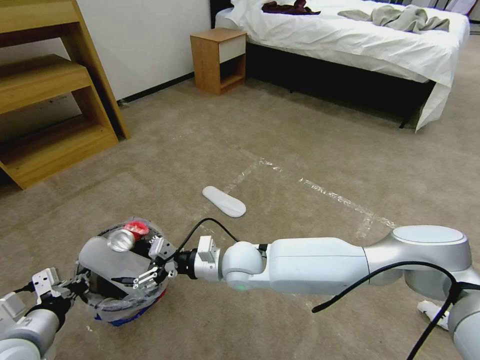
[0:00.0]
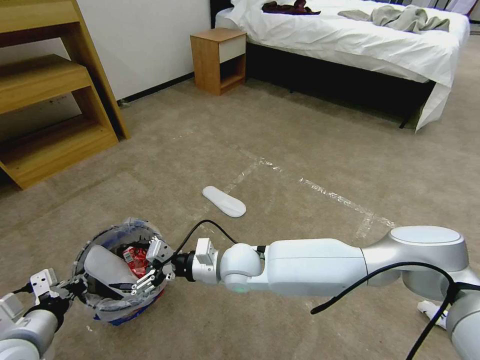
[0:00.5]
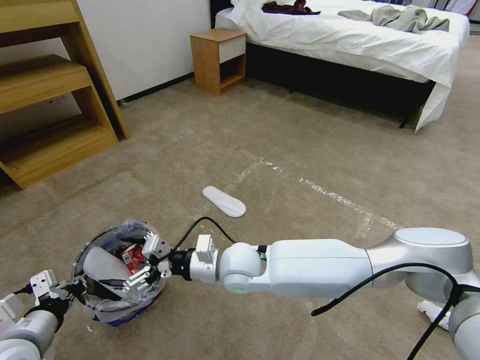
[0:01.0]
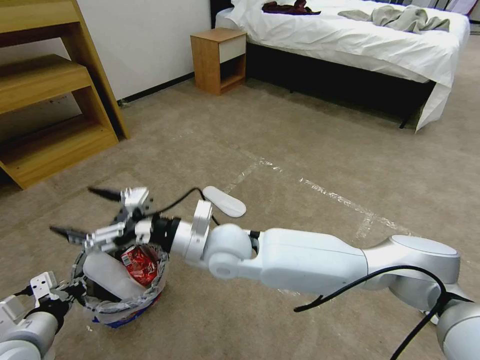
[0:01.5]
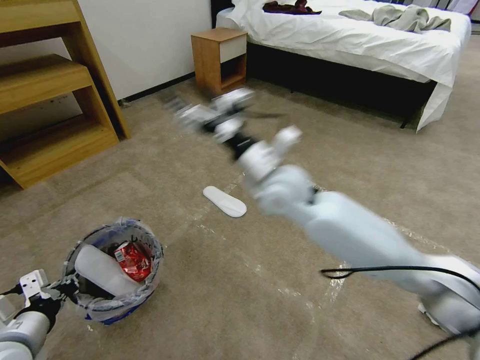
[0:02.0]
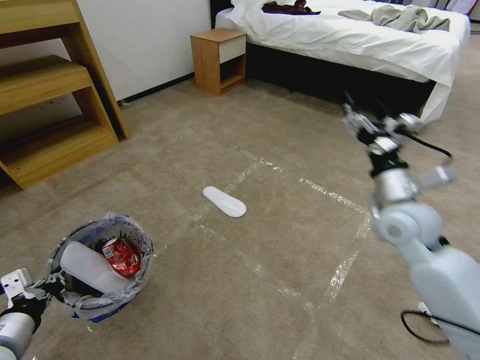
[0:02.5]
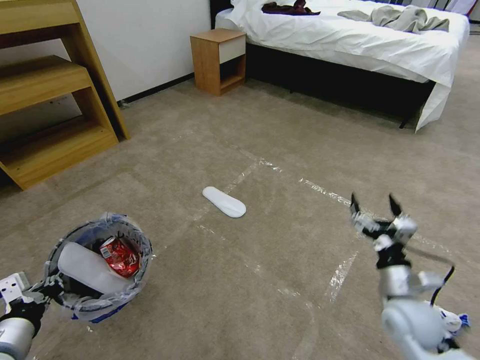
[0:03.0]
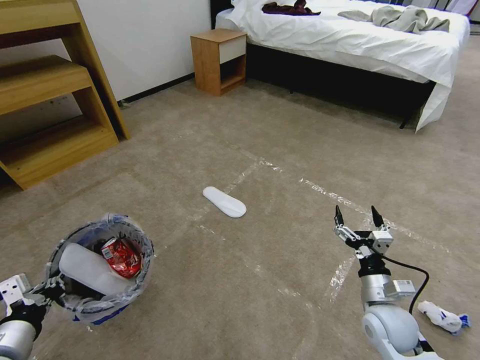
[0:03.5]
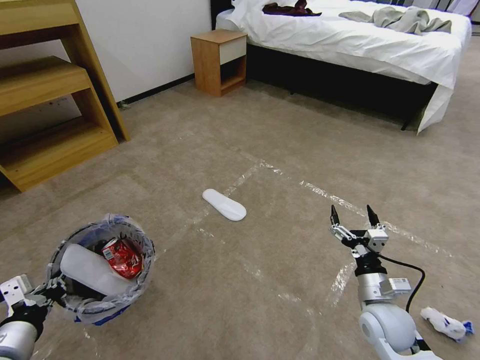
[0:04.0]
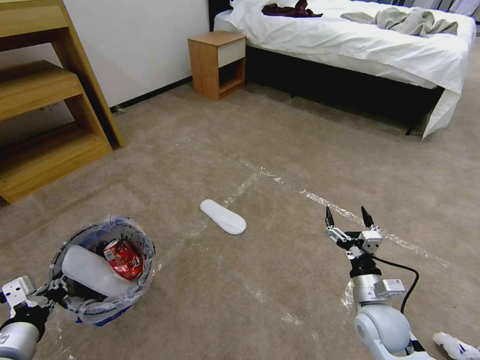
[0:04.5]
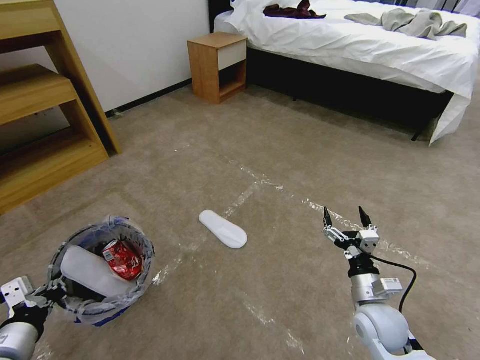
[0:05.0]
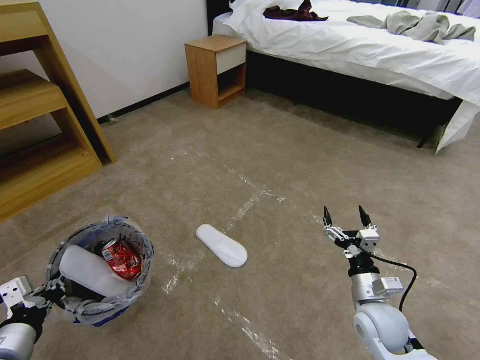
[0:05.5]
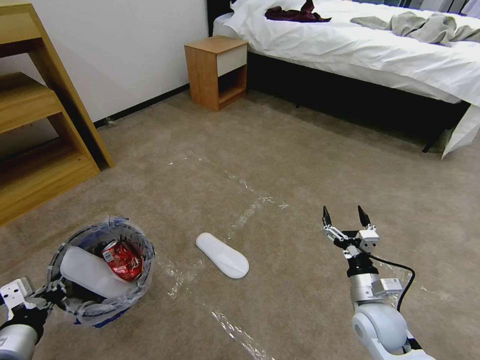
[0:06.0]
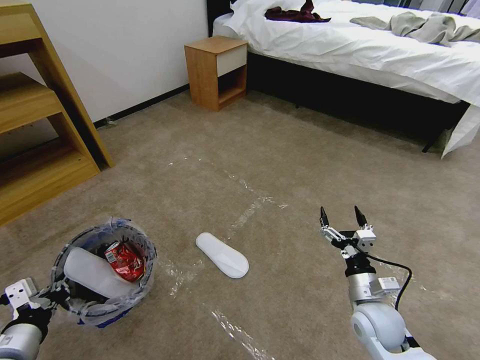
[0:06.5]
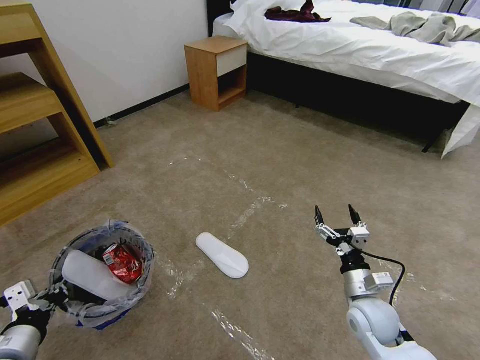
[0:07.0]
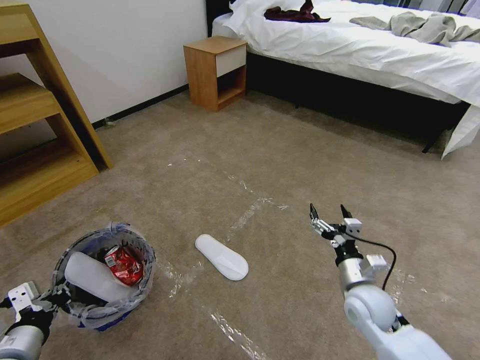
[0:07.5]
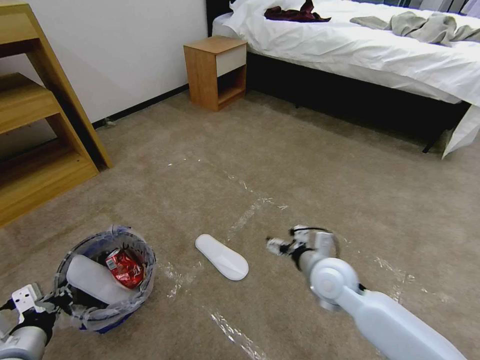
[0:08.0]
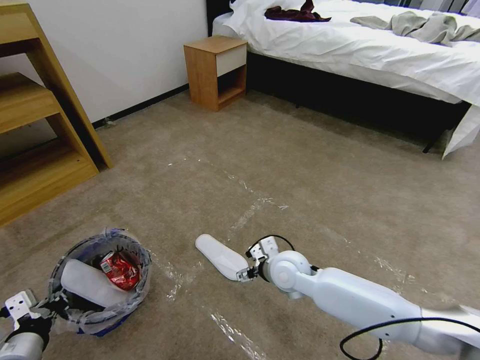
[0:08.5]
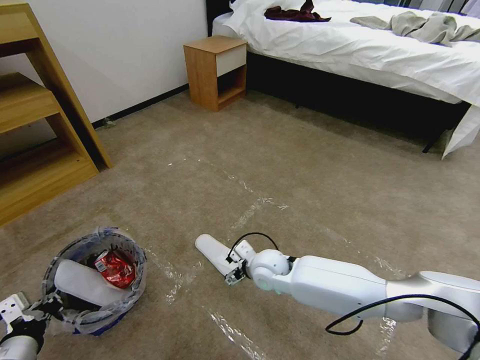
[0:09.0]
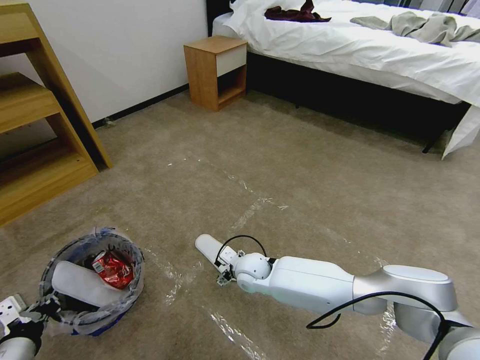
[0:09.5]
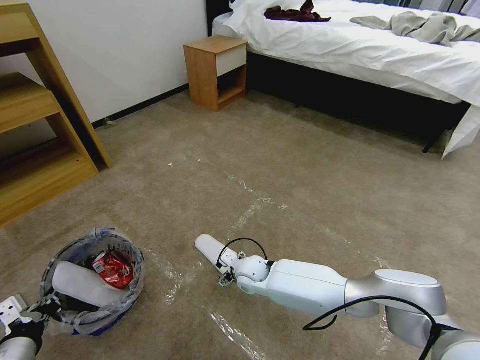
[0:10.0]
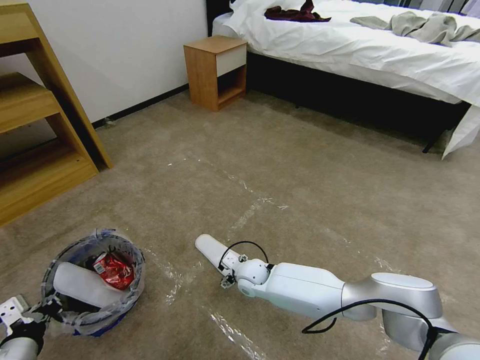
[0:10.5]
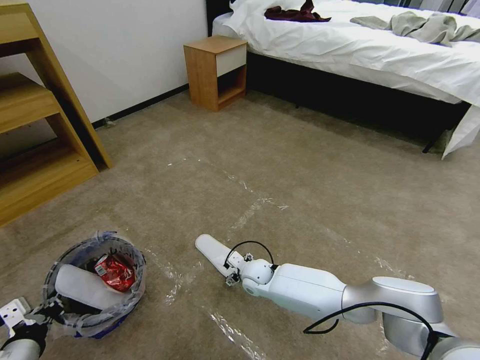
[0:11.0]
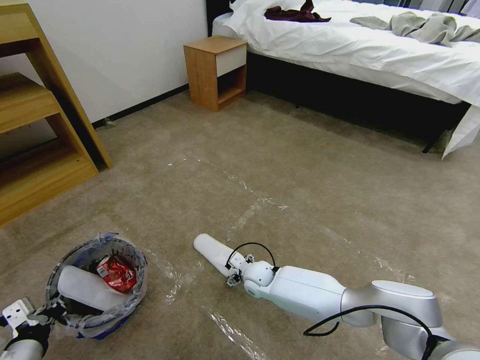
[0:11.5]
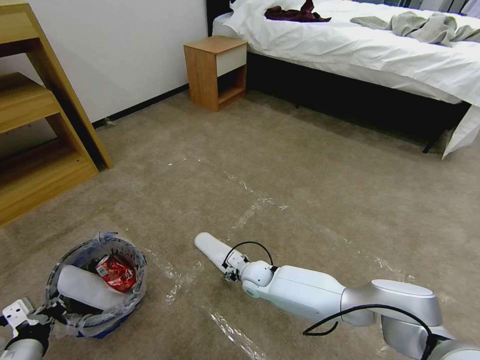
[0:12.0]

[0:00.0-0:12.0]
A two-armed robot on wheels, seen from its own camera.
Task of the whole recording: Pick up the trash bin and place the garbage on the floor into it.
0.0 to 2.0 s: The right gripper travels upward, to the right and forward by some 20 cm.
2.0 to 4.0 s: The right gripper is displaced downward, to the right and backward by about 40 cm.
6.0 to 8.0 s: The right gripper heads to the left, forward and upward, covering approximately 15 cm.
8.0 to 10.0 s: The right gripper is displaced to the left, downward and forward by roughly 20 cm.
10.0 to 12.0 s: The grippers stay close to where they were, moving slightly.

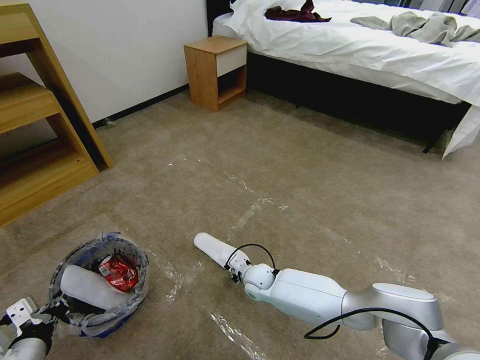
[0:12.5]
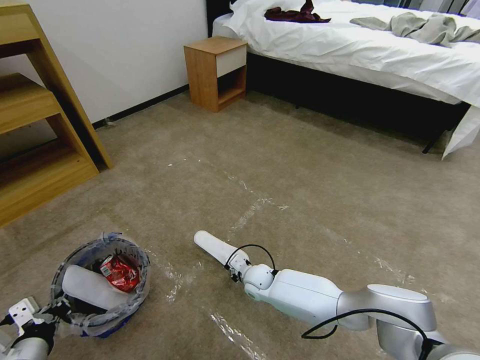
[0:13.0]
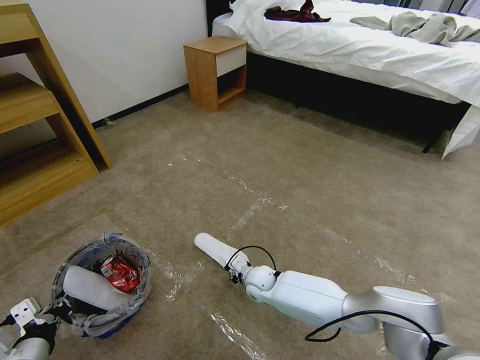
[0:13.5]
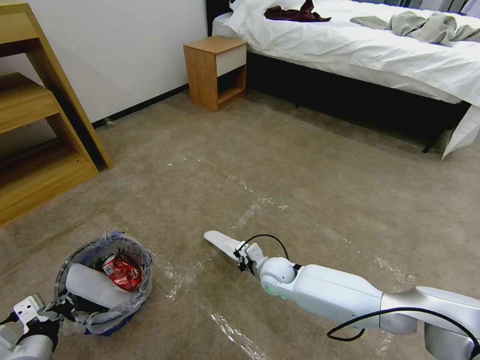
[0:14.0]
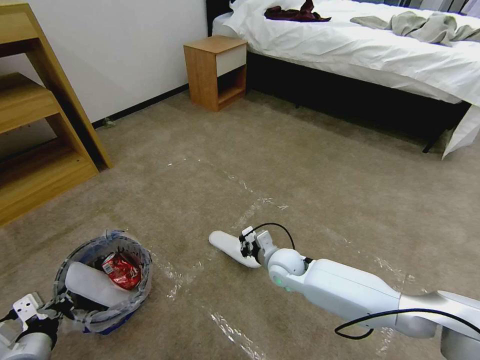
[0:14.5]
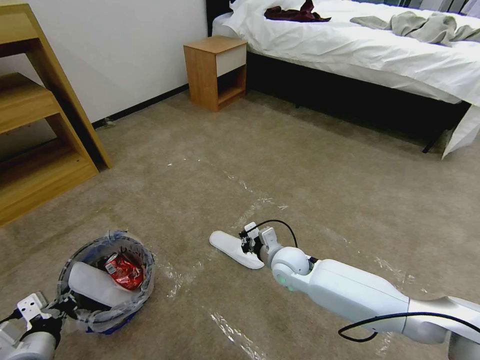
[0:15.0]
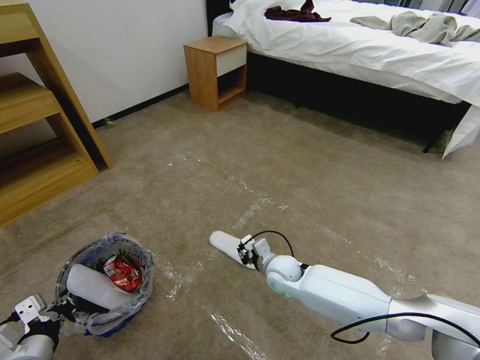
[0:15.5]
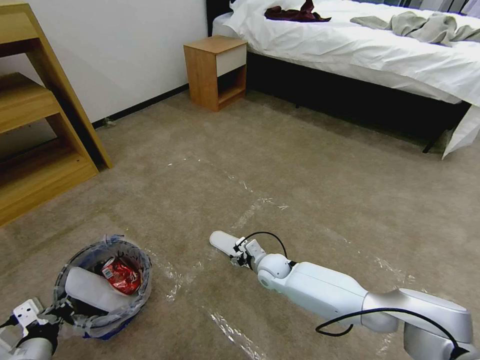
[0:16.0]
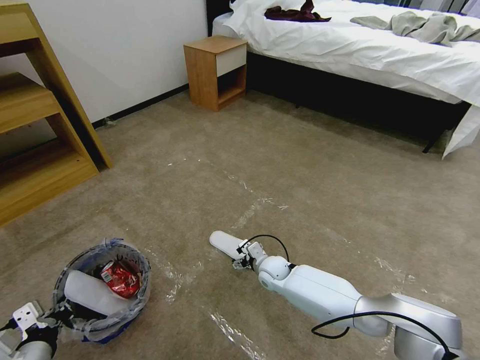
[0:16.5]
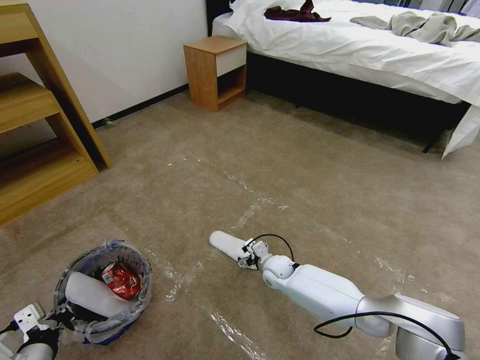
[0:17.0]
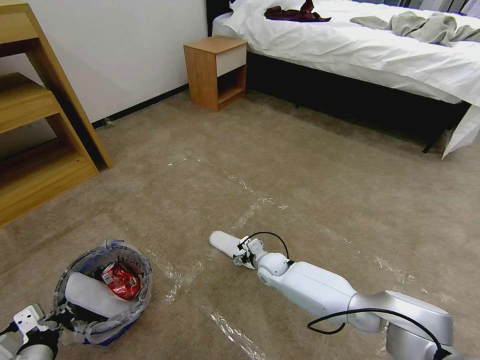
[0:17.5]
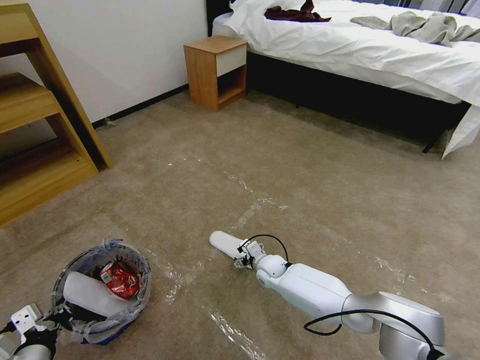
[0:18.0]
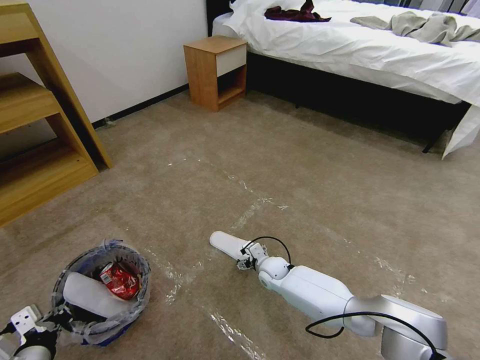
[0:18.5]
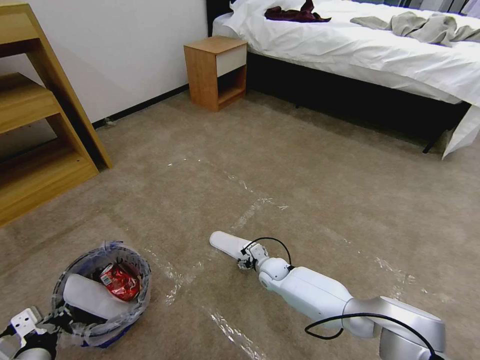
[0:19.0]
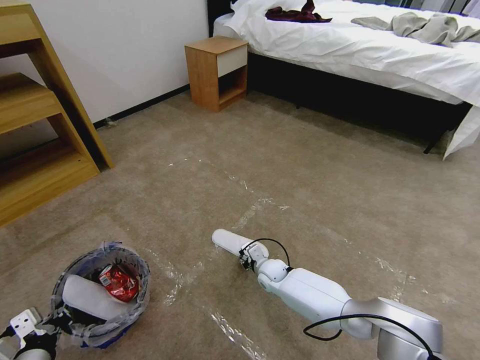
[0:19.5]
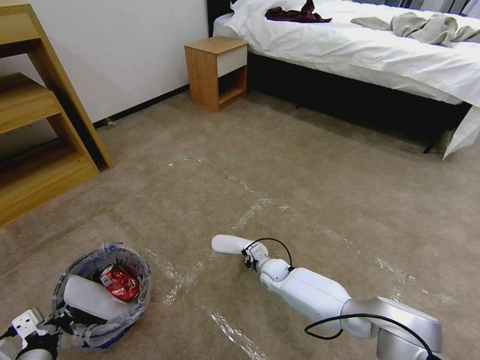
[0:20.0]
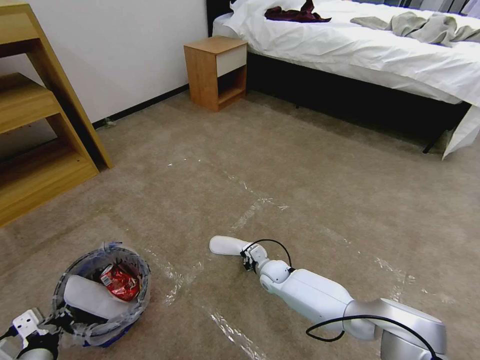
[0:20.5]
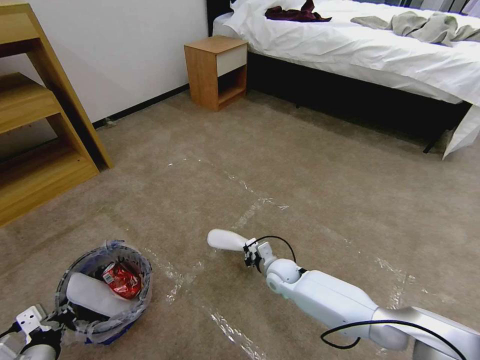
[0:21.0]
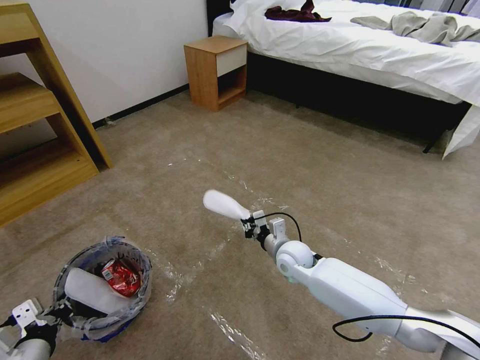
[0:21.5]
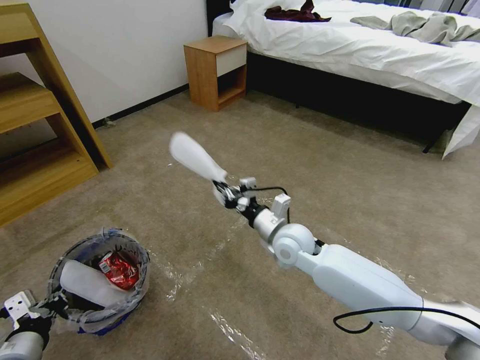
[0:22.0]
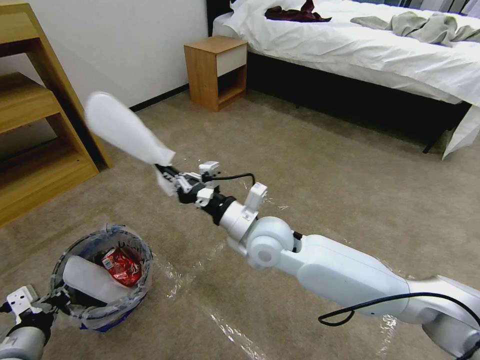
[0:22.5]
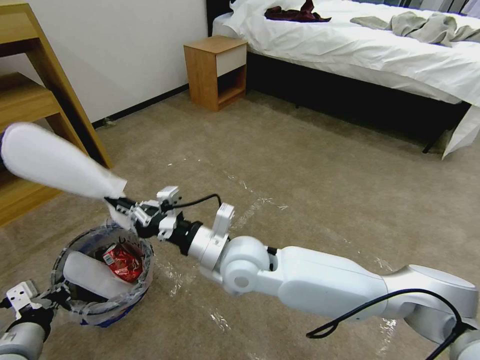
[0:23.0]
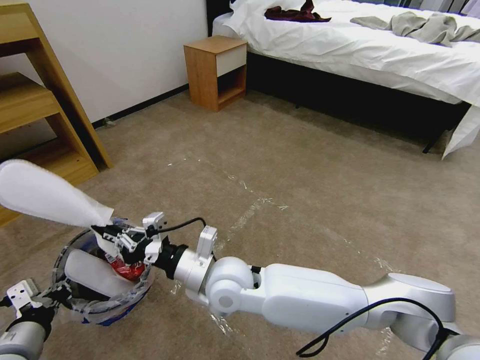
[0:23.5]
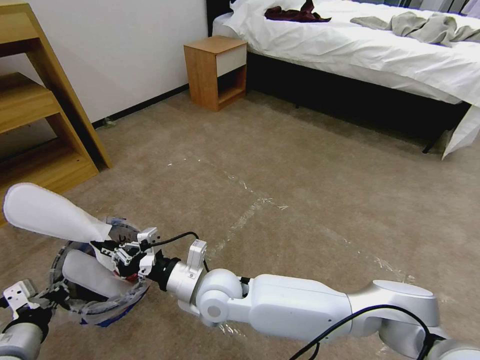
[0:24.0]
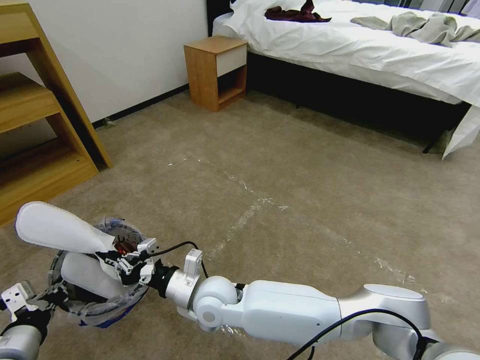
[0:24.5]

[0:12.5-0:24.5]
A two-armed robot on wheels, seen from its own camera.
Task of the whole recording: Pick up the trash bin and place the garbage on the floor into it.
12.5 to 14.5 s: The right gripper shifts approximately 10 cm upward and to the right.
14.5 to 16.5 s: The right gripper heads downward, covering some 10 cm, and opens.
16.5 to 18.5 s: There are only small adjustments of the grippers.
18.5 to 20.5 s: The right gripper closes its fingers.
20.5 to 22.5 s: The left gripper travels upward by approximately 5 cm. The right gripper is displaced upward by some 30 cm.
22.5 to 24.5 s: The right gripper moves downward, to the left and backward, roughly 20 cm.

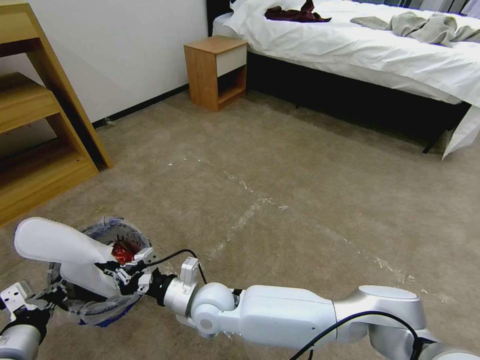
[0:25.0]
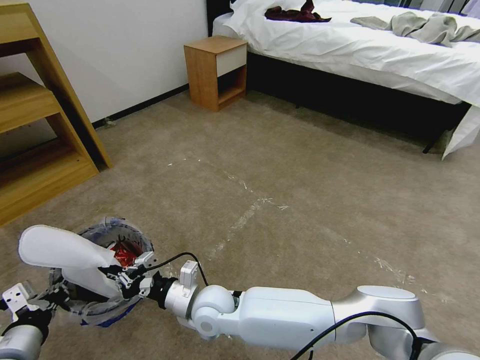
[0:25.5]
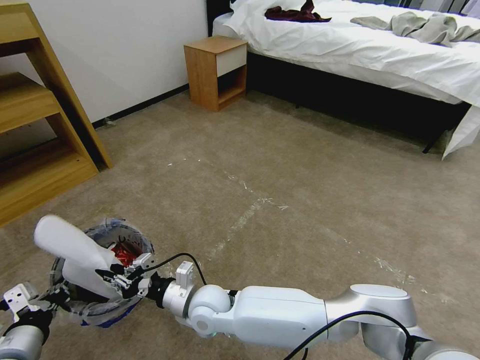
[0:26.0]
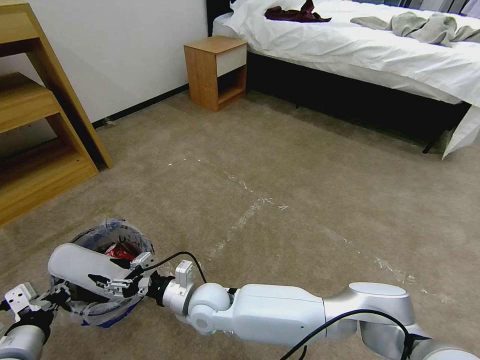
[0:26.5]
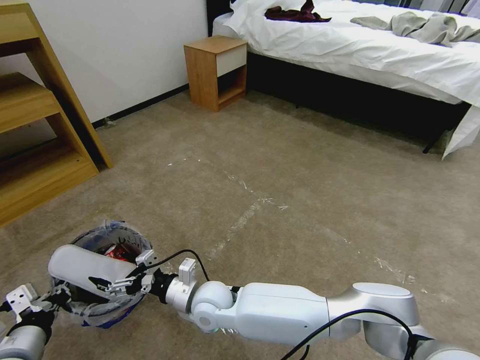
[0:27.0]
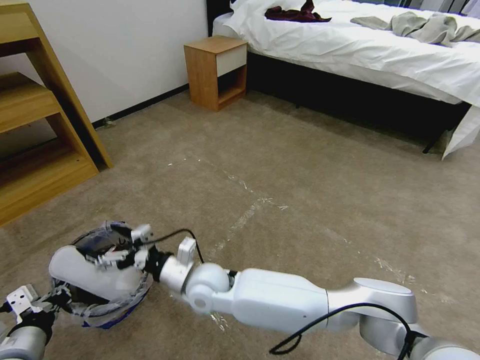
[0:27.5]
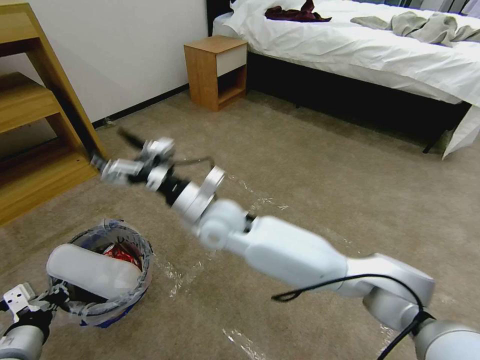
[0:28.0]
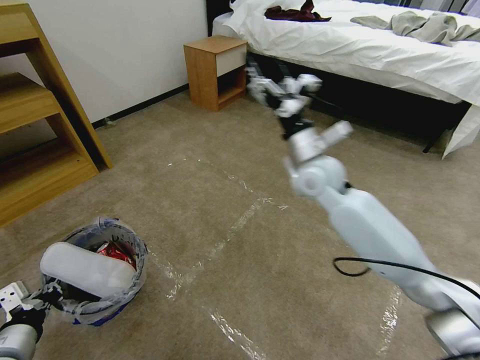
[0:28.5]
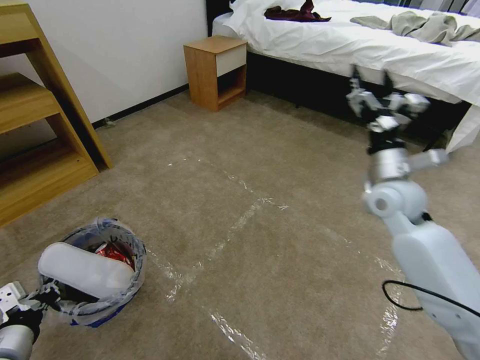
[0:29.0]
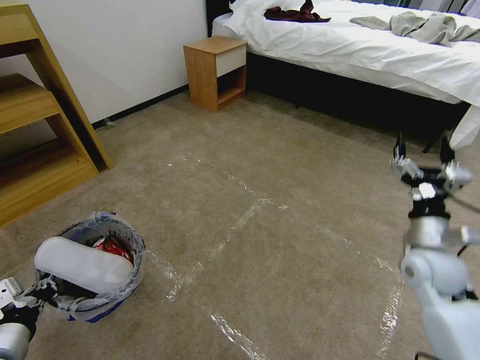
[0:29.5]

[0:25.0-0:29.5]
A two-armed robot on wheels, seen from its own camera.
Task of the whole recording: Pick up the trash bin and place the garbage on the floor into it.
25.0 to 27.0 s: The right gripper opens up.
27.0 to 29.5 s: The right gripper shifts some 50 cm to the right.
